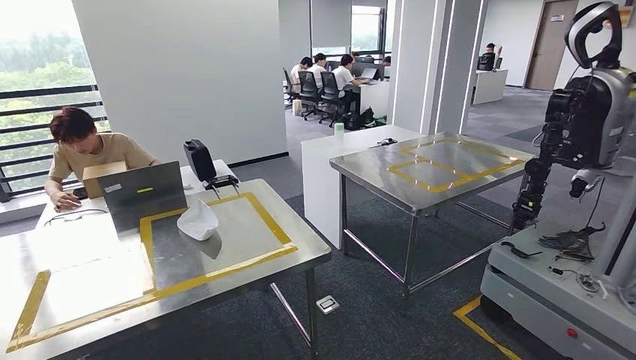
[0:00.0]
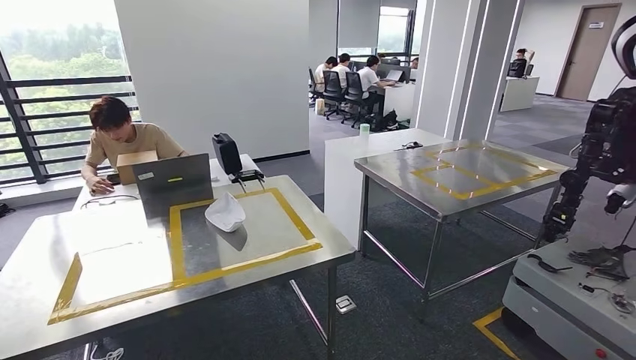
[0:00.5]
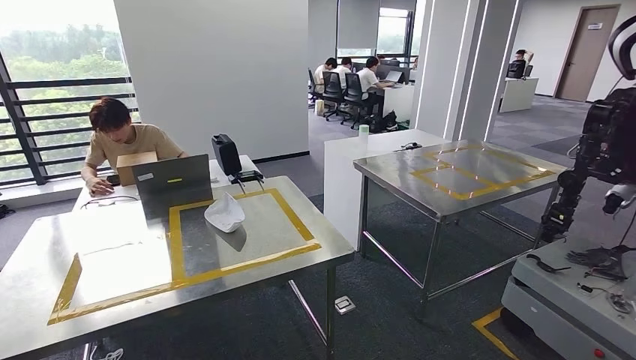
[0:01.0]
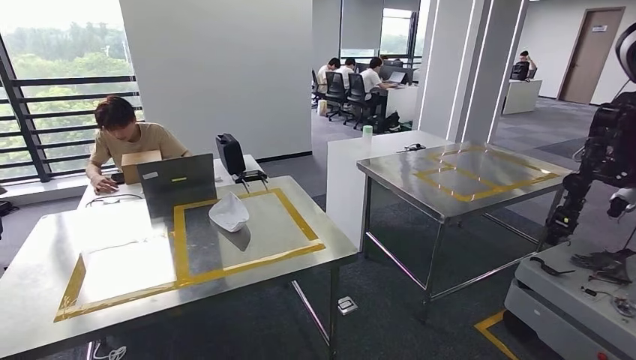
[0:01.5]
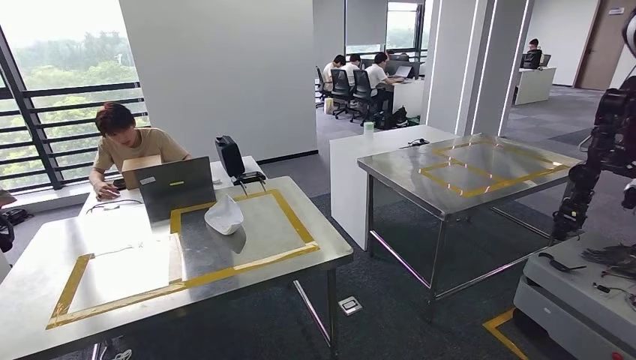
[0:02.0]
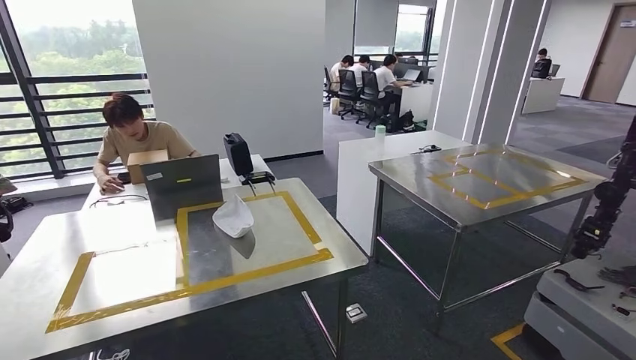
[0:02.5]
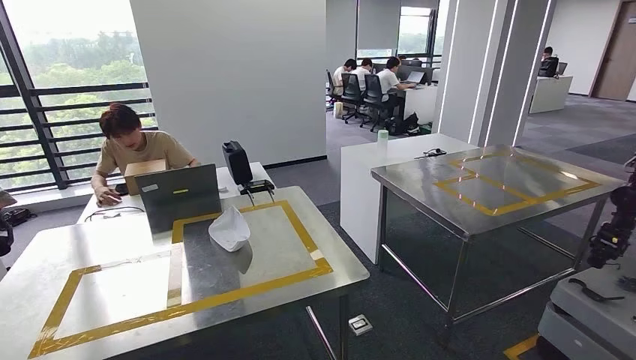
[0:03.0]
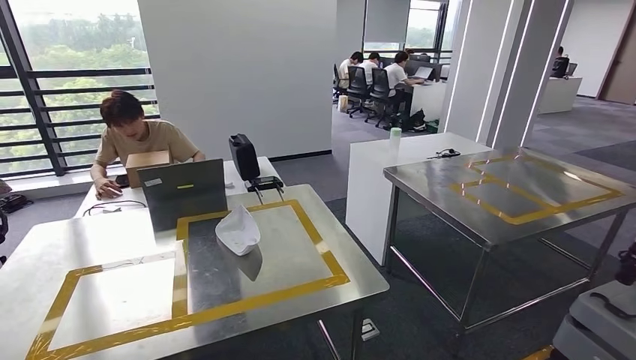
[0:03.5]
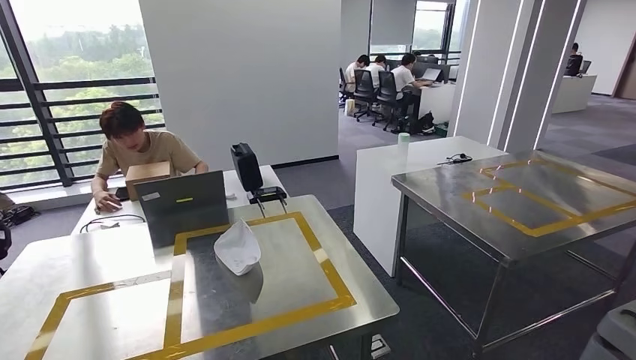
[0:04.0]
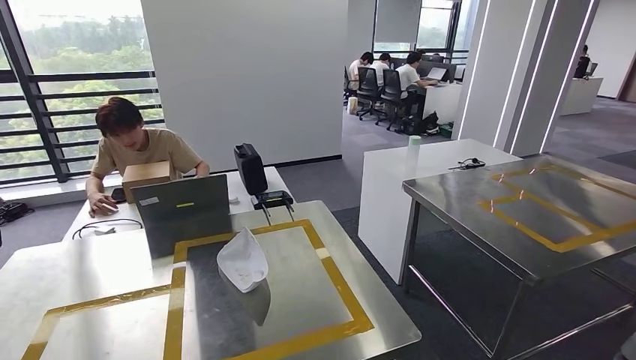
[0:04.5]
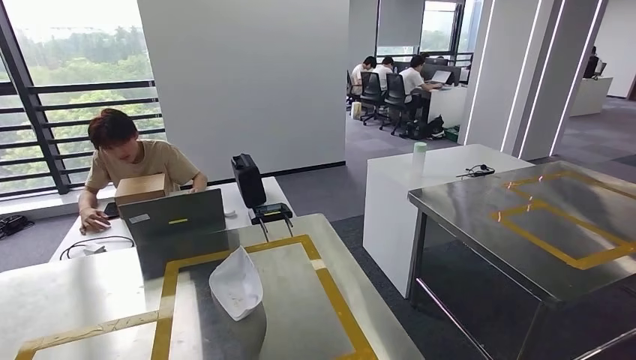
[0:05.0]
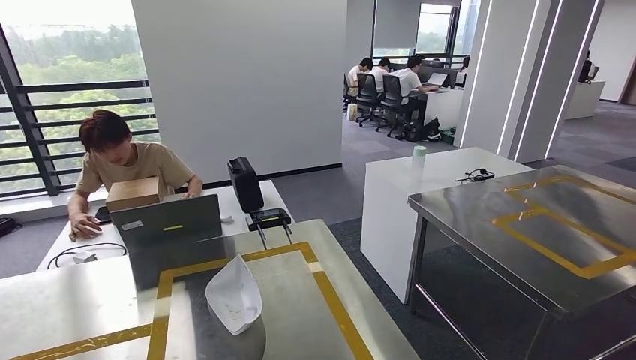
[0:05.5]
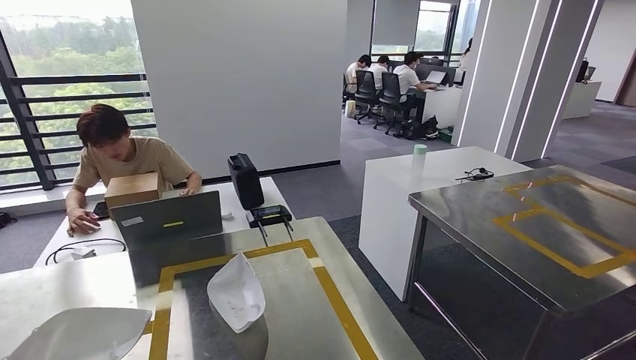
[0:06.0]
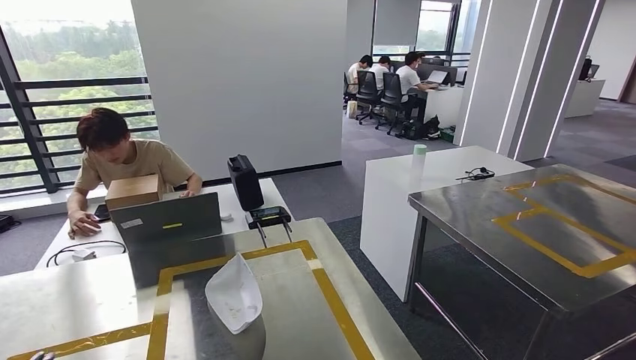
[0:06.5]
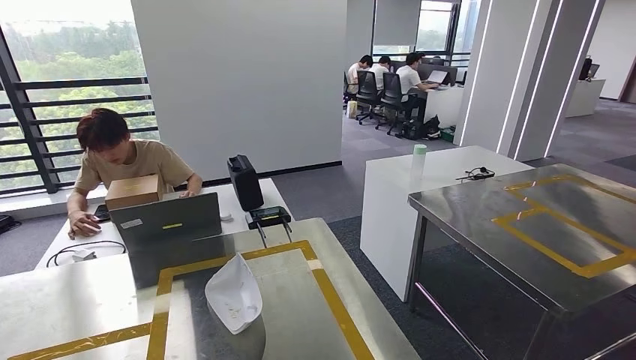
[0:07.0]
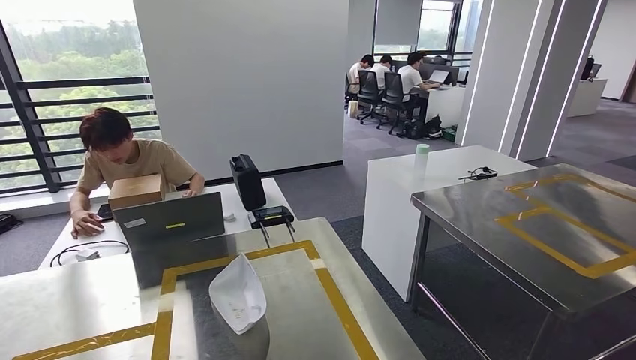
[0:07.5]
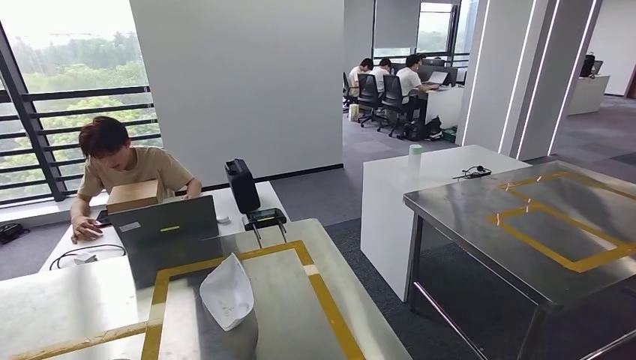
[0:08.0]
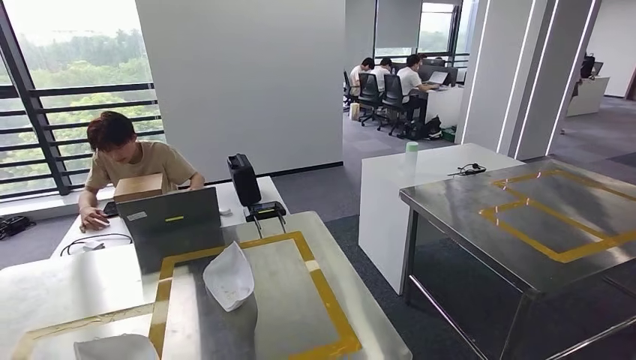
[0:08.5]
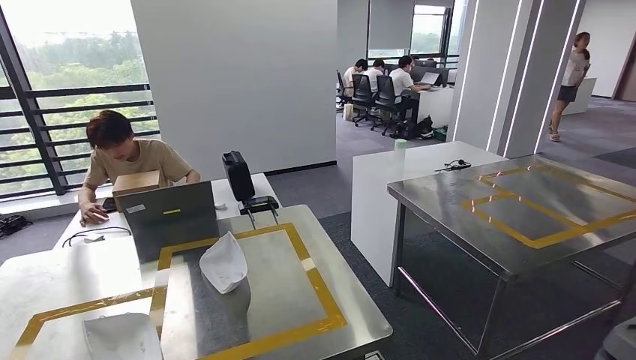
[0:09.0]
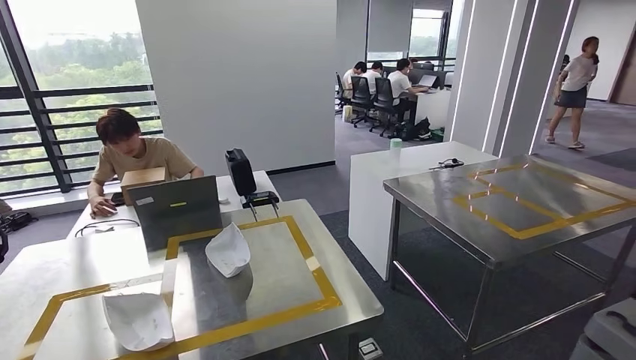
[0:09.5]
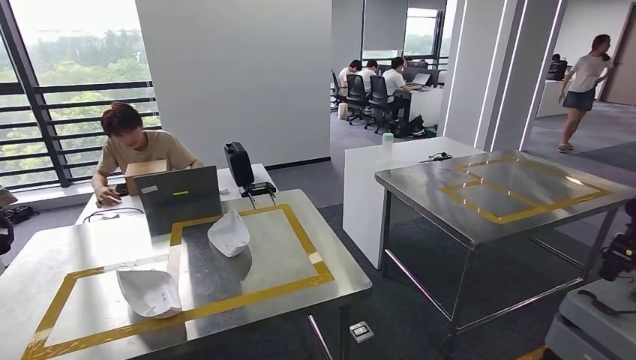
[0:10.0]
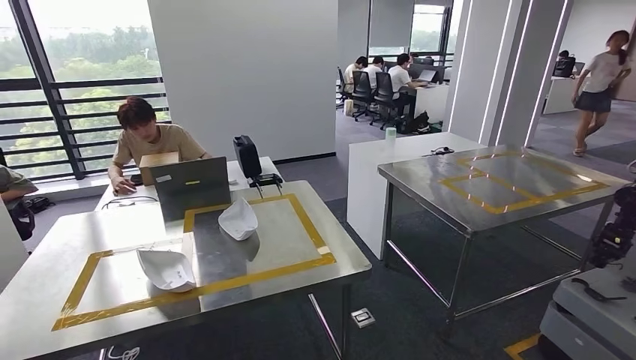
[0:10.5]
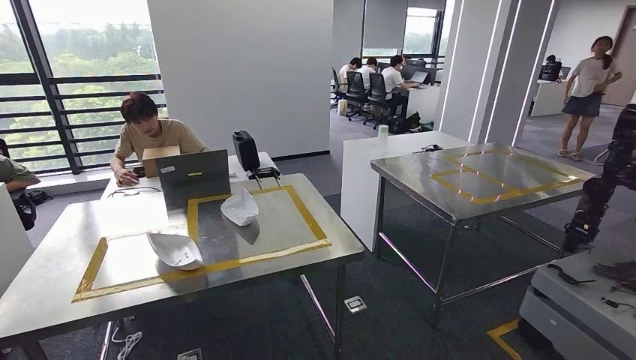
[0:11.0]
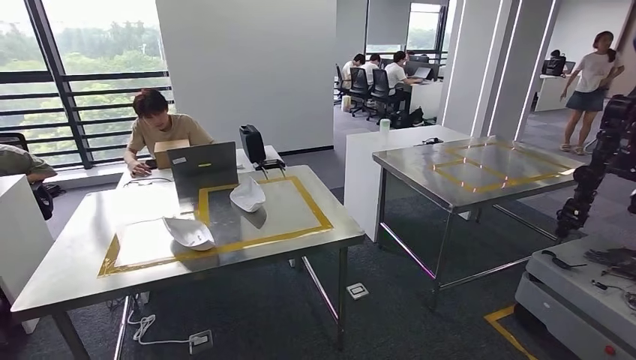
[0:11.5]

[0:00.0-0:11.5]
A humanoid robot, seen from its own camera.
Step, 0:00.5 to 0:10.5: Insert the small parts into the corresponding holes on the workbench.
Step, 0:11.0 to 0:11.5: Move to the initial position of the workbench.

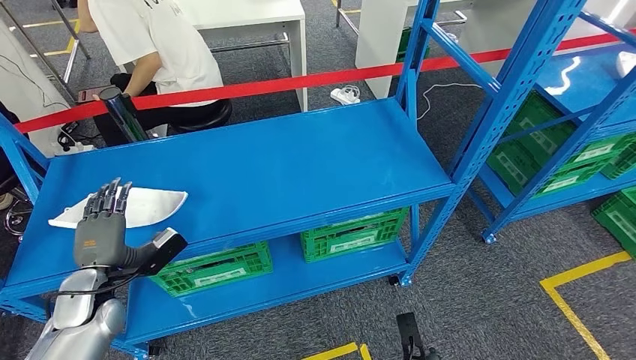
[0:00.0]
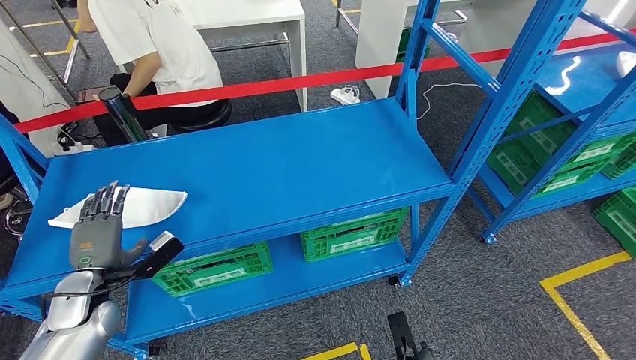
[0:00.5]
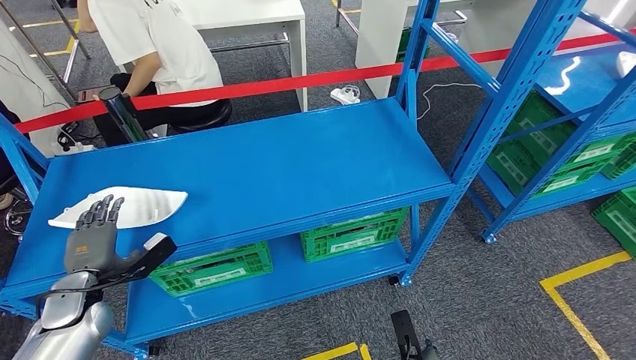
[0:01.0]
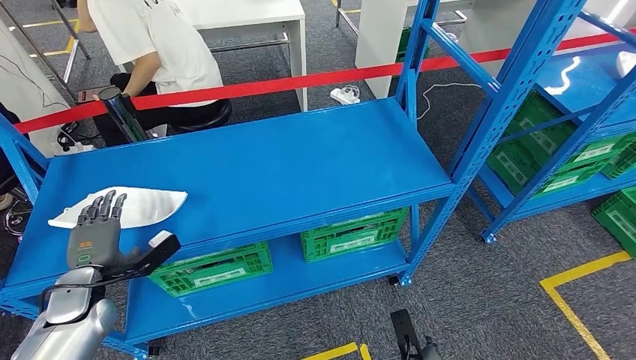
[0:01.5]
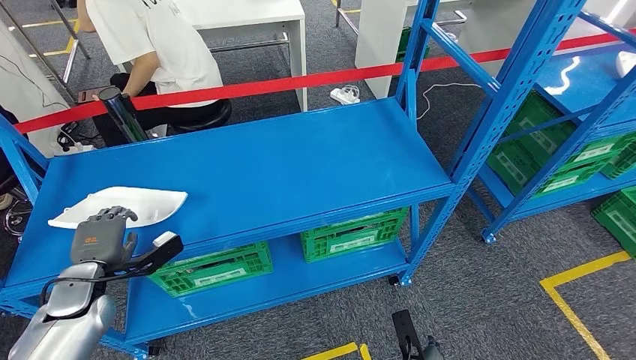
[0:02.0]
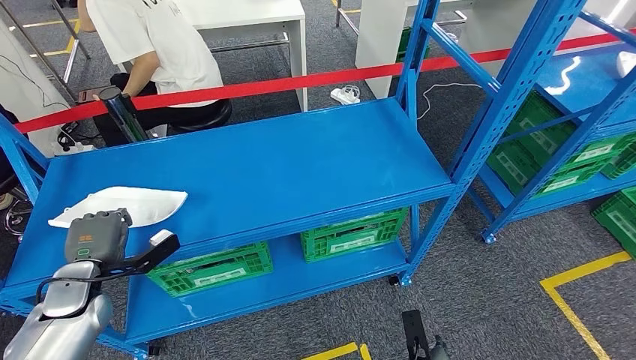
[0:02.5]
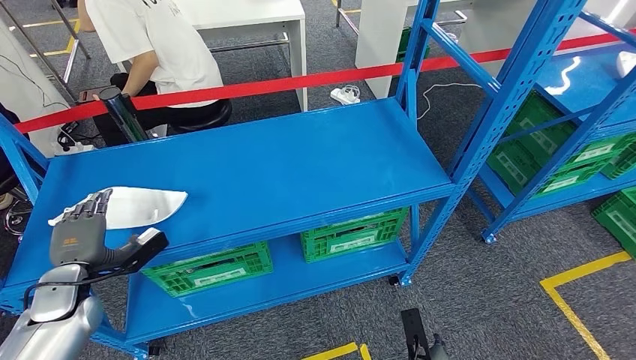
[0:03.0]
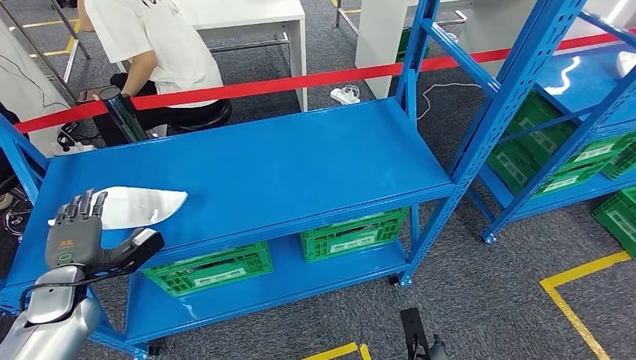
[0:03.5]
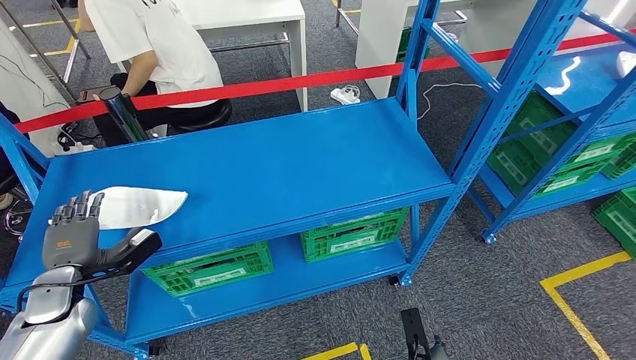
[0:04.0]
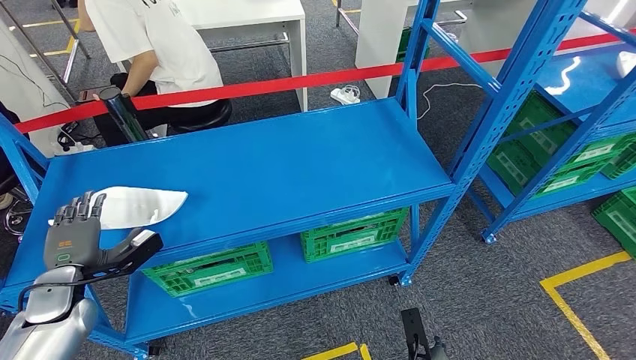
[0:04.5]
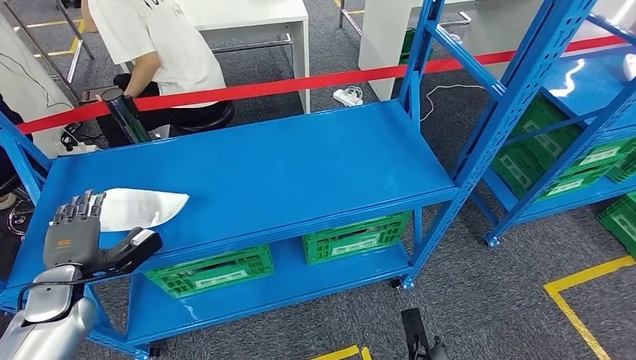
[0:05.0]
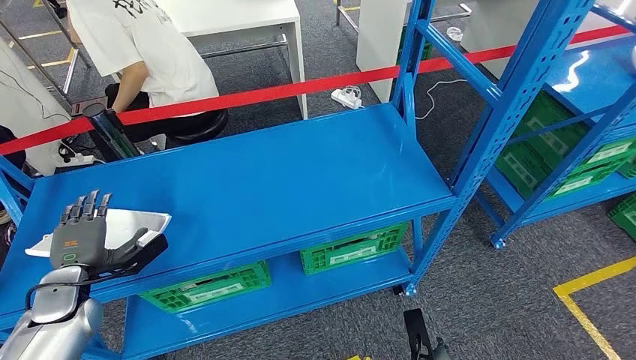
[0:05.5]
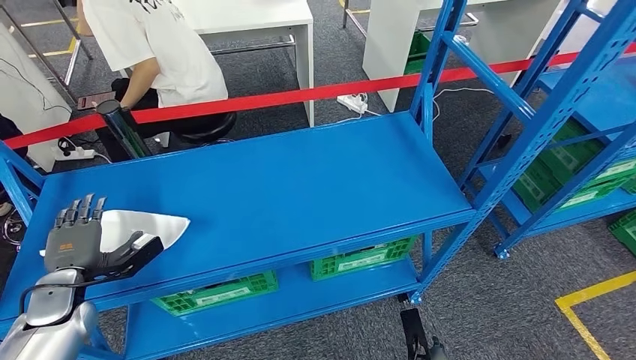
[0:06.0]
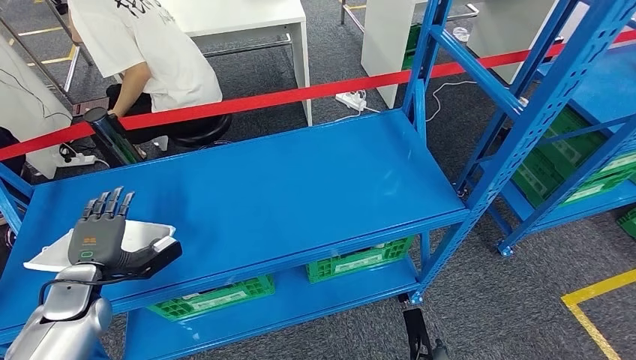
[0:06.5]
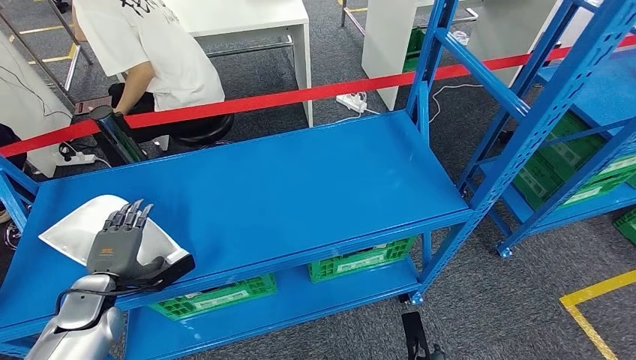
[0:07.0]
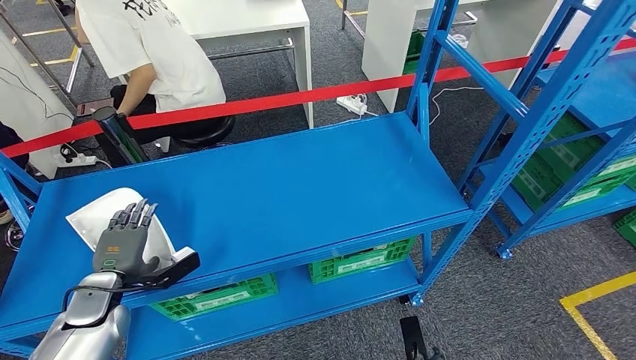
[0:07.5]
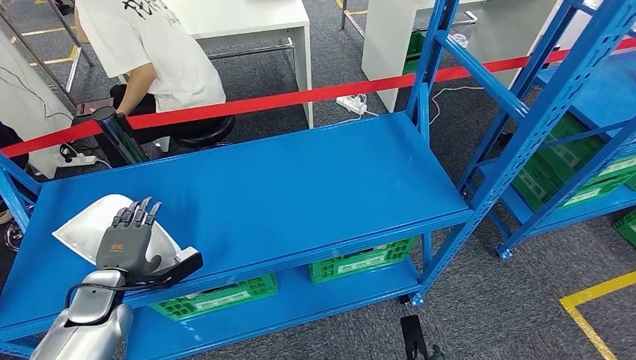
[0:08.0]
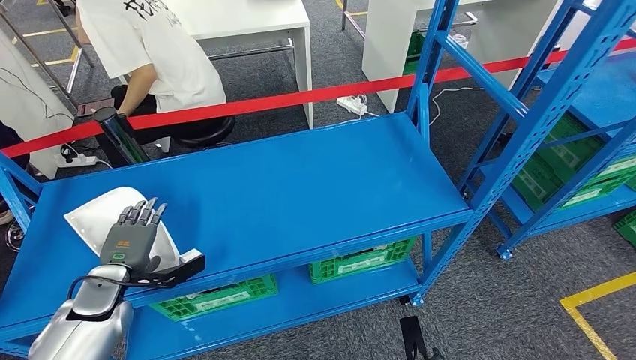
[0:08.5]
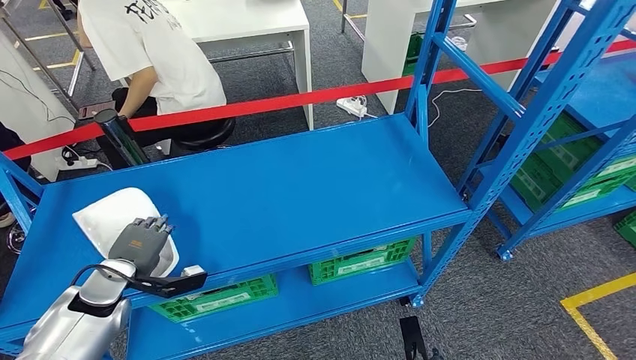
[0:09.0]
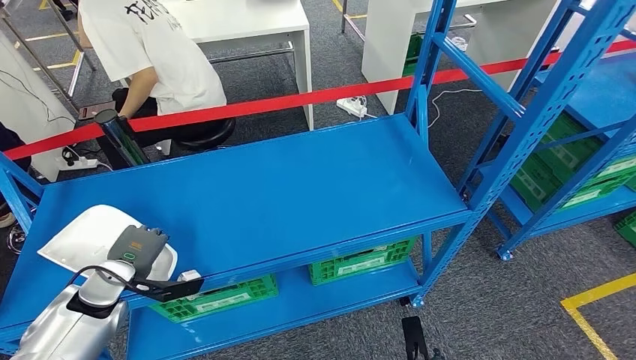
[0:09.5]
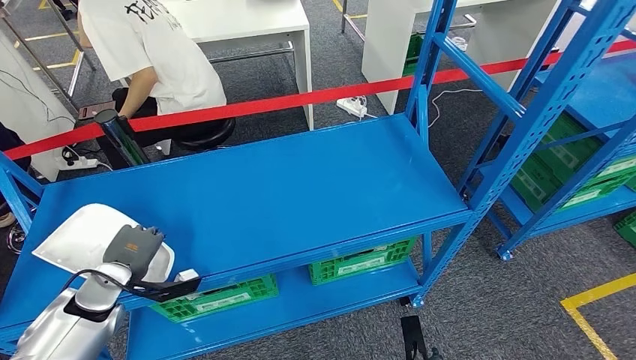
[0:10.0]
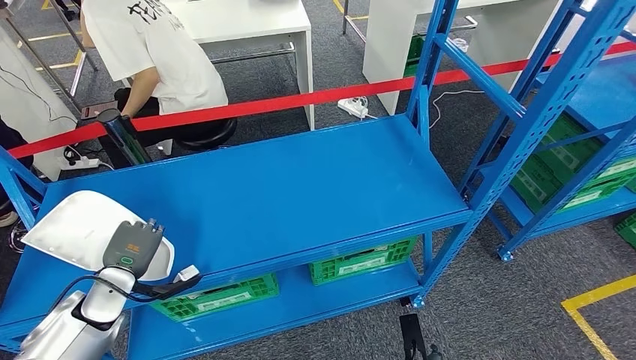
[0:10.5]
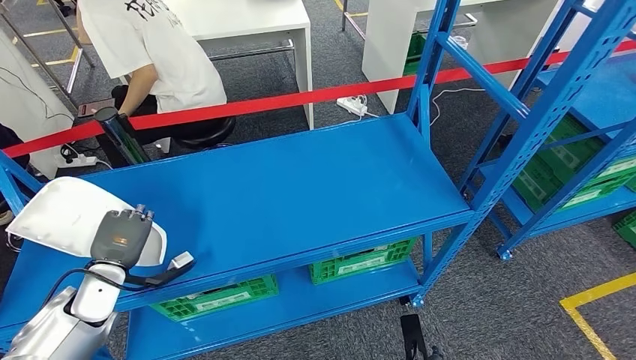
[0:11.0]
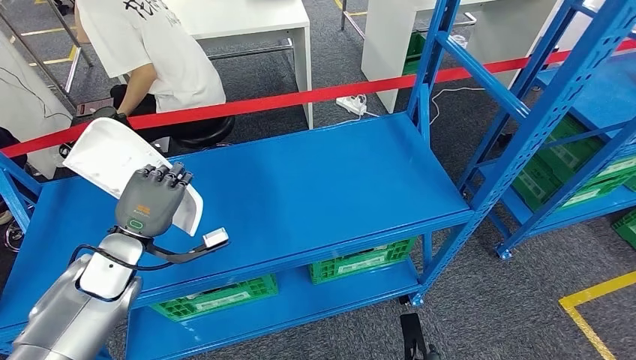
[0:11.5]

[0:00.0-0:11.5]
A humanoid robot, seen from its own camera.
0:00.0 to 0:04.0: The hands stay close to where they were, moving slightly.
0:09.5 to 0:11.5: The left hand is displaced upward and to the right by roughly 10 cm.
